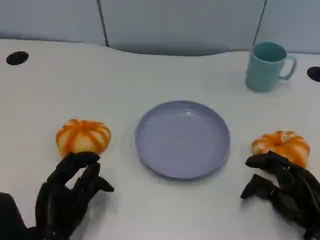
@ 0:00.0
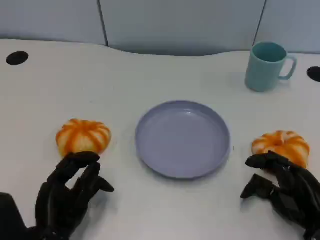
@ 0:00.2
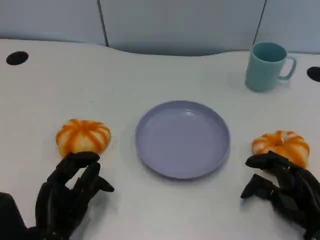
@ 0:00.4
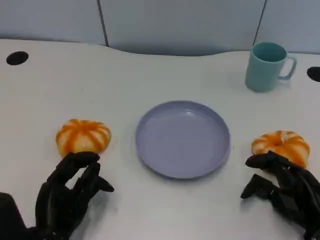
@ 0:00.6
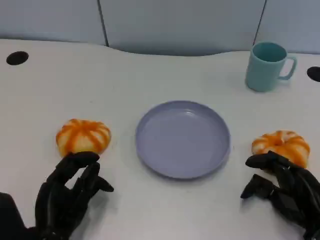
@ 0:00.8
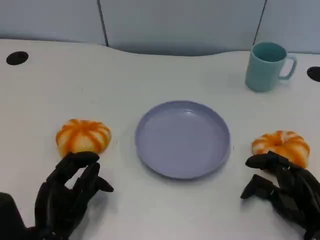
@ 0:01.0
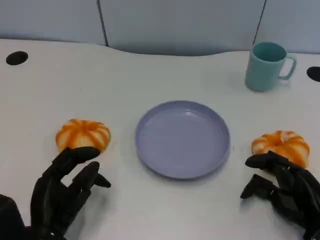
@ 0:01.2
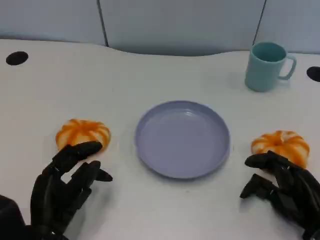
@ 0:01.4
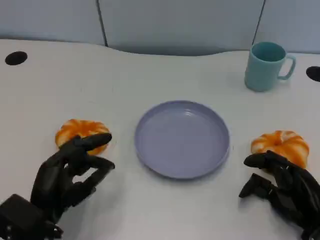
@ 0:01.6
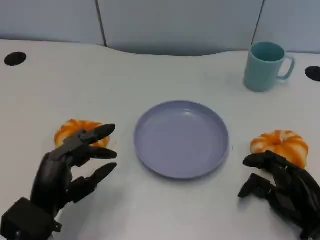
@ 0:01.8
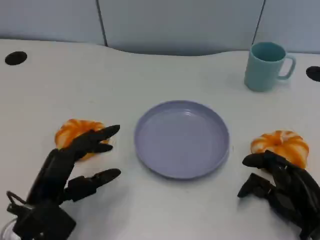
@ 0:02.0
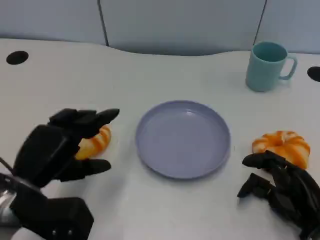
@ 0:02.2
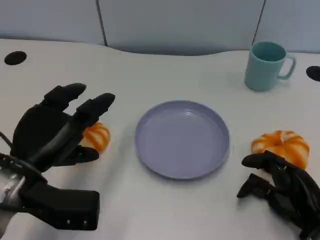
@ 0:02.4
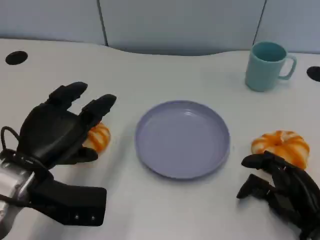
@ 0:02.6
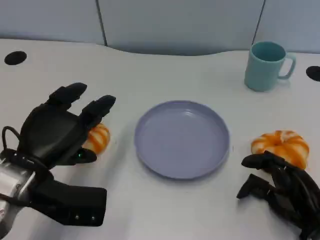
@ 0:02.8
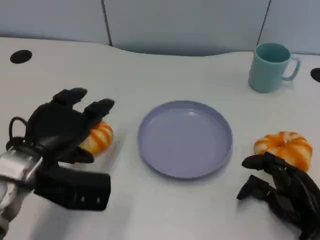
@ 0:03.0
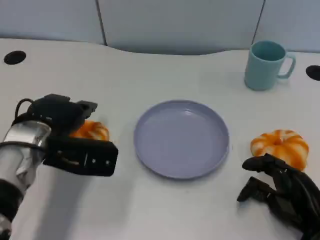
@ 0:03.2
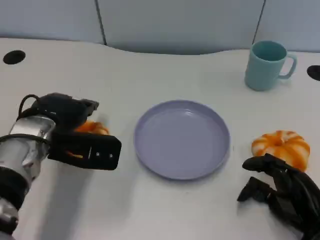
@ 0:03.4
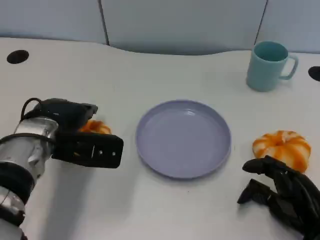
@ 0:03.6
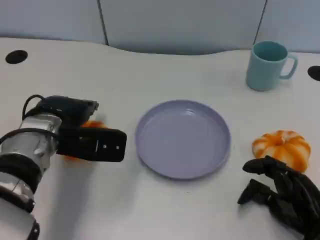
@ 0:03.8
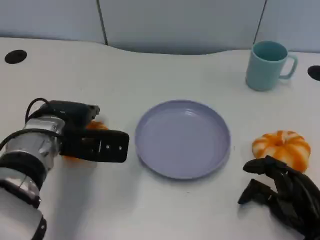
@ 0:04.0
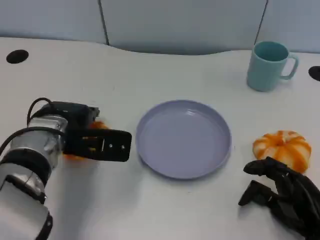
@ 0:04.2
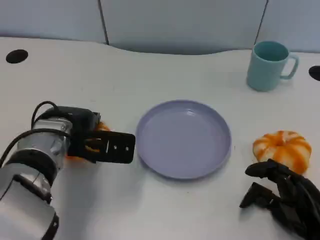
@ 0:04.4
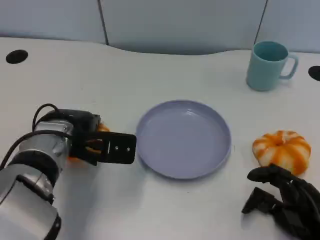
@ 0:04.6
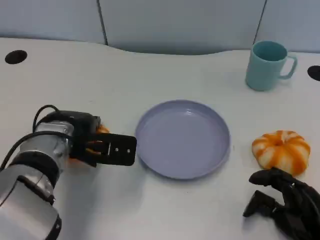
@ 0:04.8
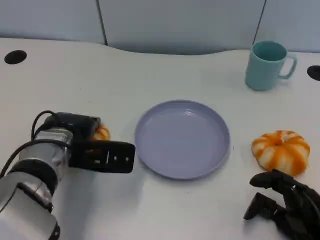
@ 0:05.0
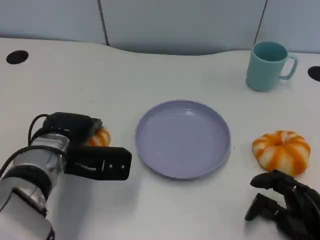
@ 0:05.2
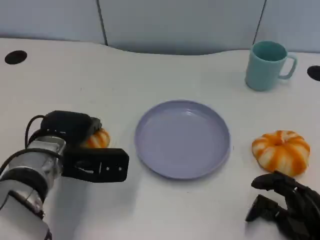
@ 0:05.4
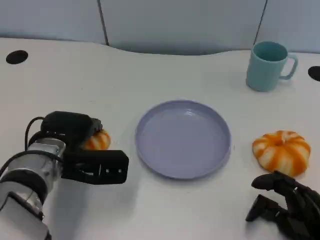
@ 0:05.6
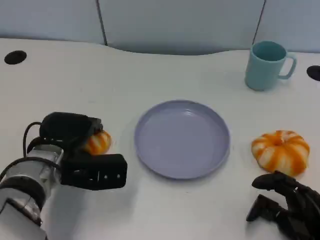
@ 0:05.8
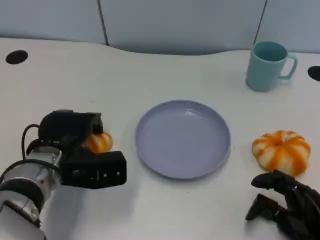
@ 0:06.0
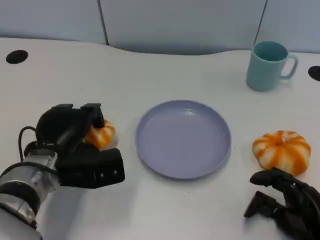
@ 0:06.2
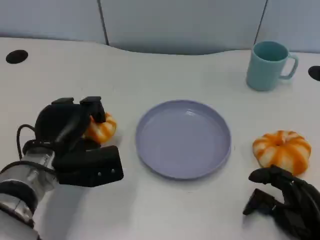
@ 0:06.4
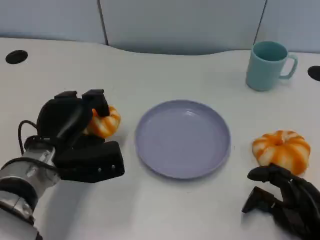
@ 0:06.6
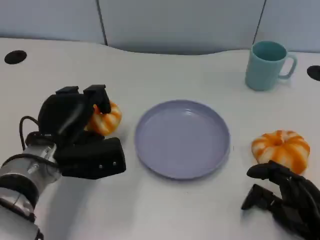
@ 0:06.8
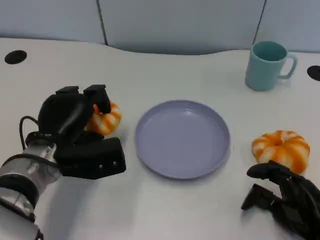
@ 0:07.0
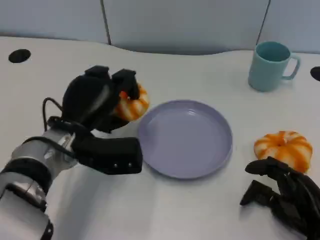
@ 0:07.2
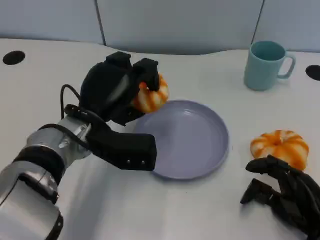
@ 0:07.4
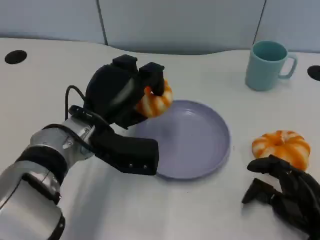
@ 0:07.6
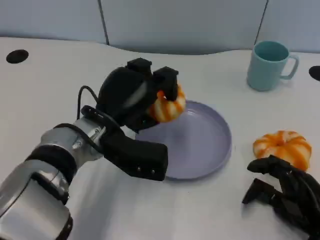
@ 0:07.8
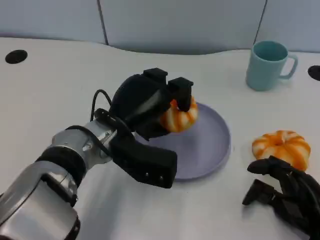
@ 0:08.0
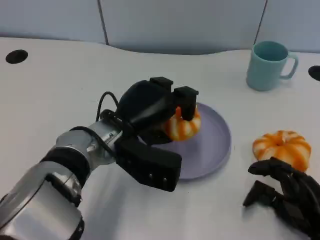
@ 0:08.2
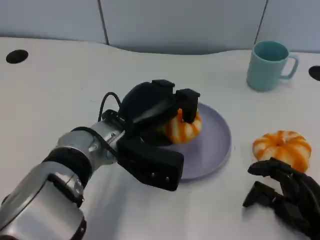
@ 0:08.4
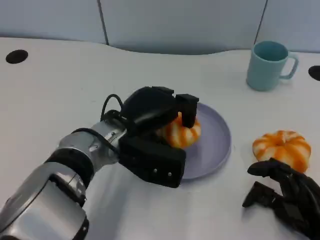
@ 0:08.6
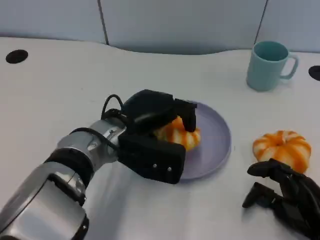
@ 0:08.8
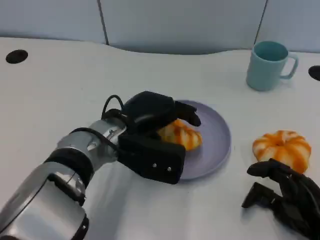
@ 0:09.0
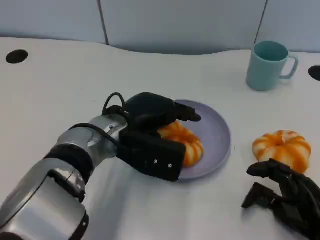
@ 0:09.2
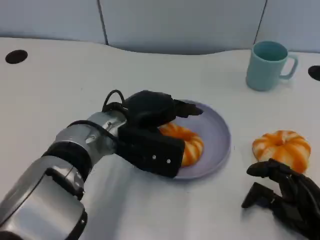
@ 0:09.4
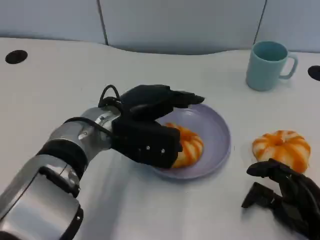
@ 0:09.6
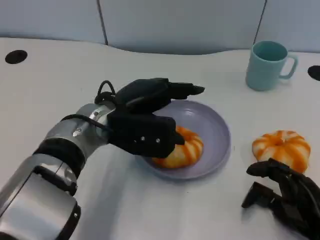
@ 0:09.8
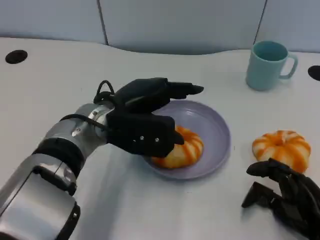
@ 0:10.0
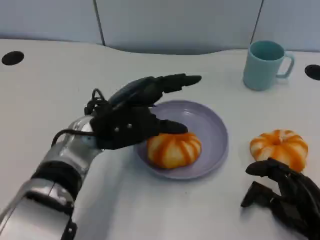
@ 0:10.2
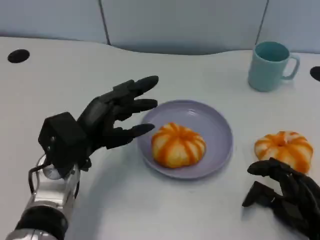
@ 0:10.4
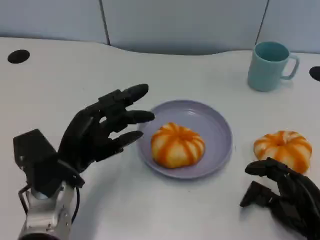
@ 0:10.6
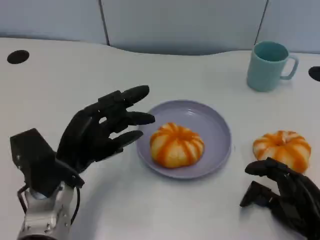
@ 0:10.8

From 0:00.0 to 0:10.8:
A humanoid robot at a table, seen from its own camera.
Task of the whole recording: Grasp the bread from the table and place it into the plate.
From 0:01.6 to 0:03.0: The left hand travels forward and upward by roughly 10 cm.
From 0:03.0 to 0:04.6: The left hand ends up about 5 cm from where it was.
From 0:04.6 to 0:06.2: The left hand shifts by about 5 cm.
From 0:06.2 to 0:07.8: The left hand is displaced to the right by about 10 cm.
From 0:09.2 to 0:10.8: The left hand shifts roughly 10 cm to the left and backward.

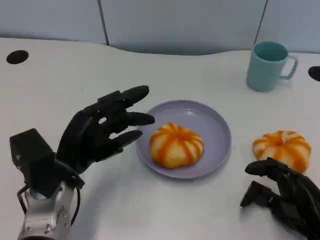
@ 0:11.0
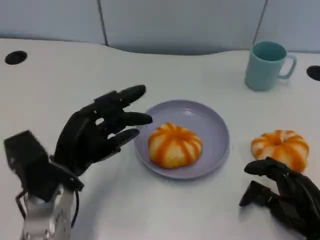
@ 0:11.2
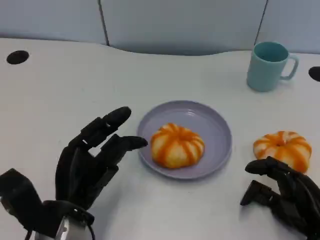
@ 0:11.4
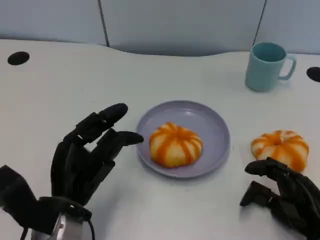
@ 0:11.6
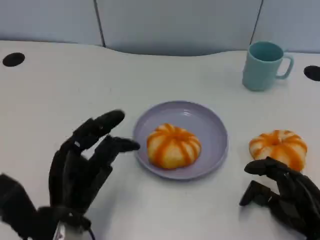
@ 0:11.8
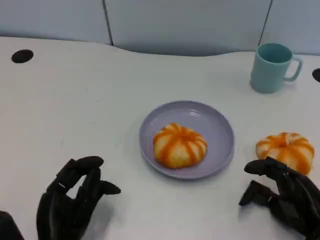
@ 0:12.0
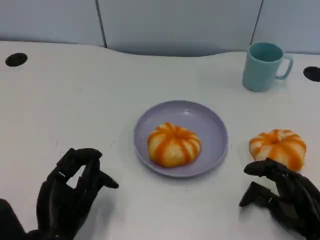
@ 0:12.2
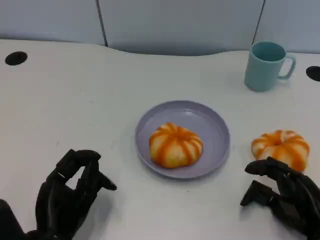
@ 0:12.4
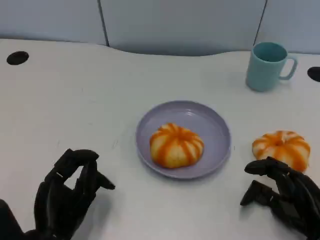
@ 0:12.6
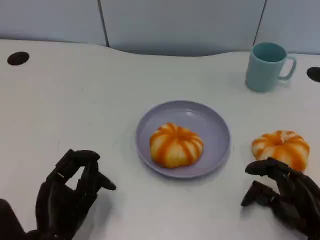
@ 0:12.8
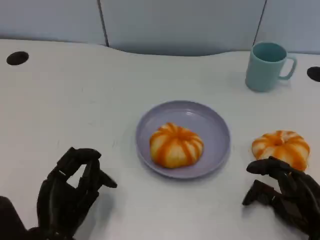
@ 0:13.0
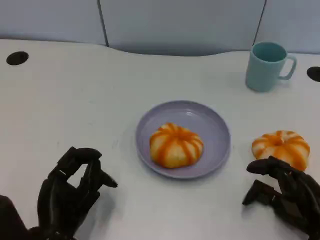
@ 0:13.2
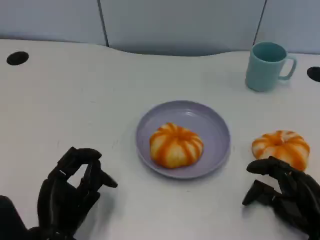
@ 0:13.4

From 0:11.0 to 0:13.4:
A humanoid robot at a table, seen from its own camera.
Task of the whole recording: Grasp the bread from the table and place it into the plate.
From 0:11.0 to 0:12.2: The left hand shifts some 10 cm backward.
From 0:12.2 to 0:13.4: Both hands stay put.

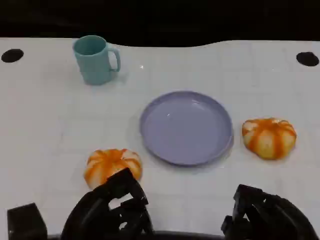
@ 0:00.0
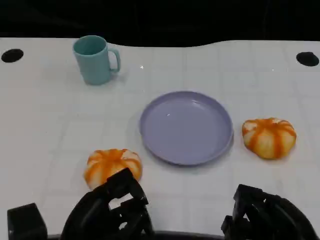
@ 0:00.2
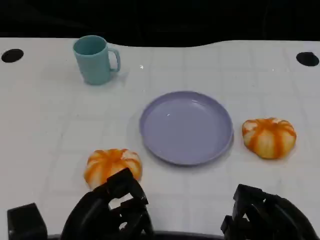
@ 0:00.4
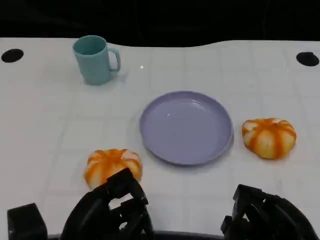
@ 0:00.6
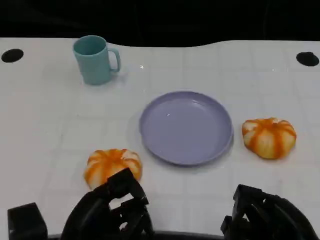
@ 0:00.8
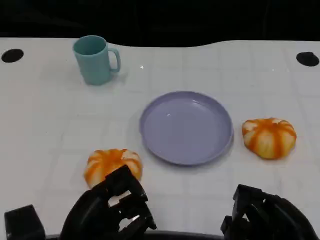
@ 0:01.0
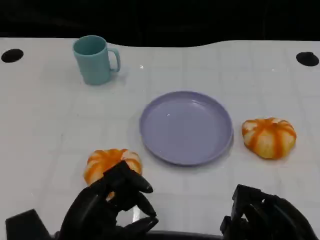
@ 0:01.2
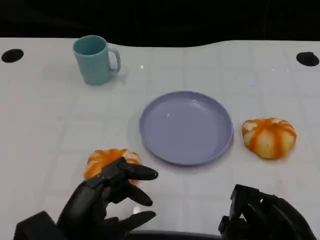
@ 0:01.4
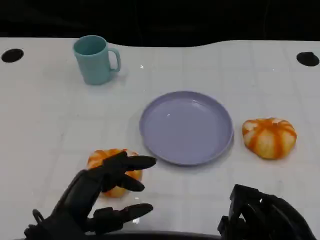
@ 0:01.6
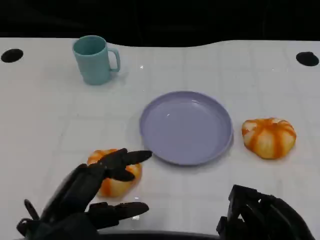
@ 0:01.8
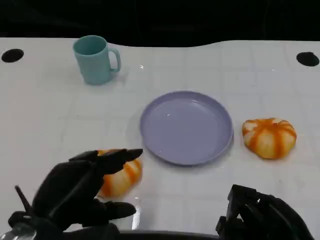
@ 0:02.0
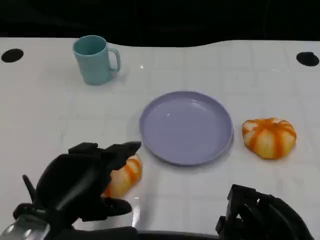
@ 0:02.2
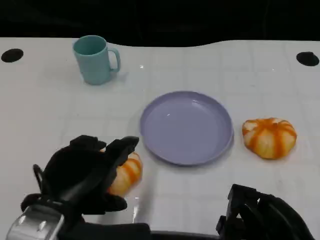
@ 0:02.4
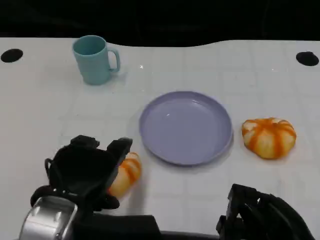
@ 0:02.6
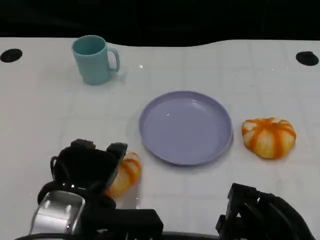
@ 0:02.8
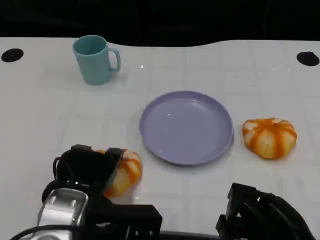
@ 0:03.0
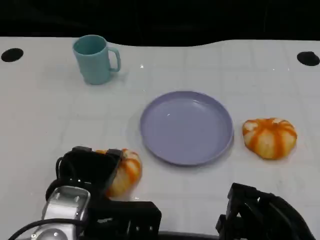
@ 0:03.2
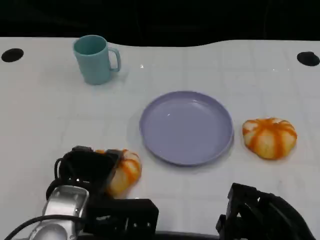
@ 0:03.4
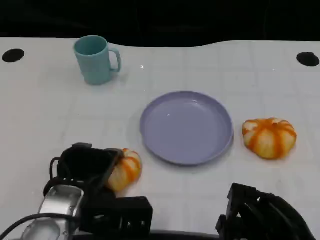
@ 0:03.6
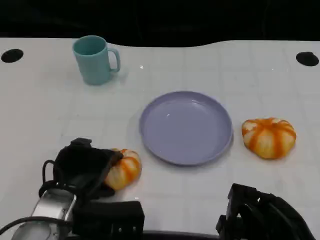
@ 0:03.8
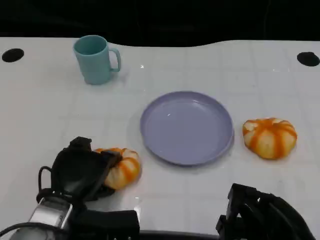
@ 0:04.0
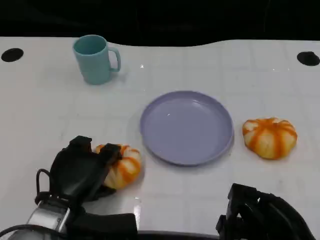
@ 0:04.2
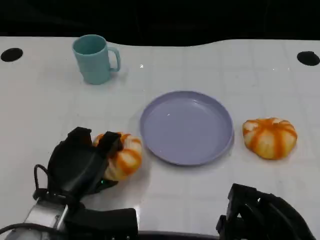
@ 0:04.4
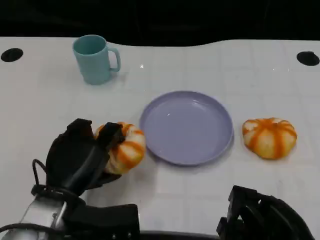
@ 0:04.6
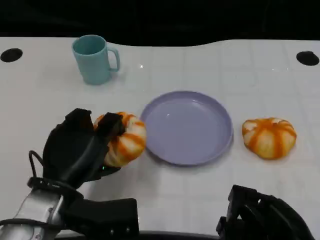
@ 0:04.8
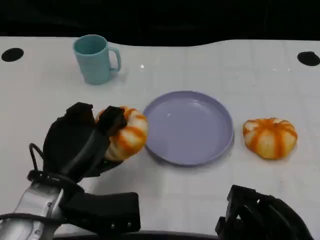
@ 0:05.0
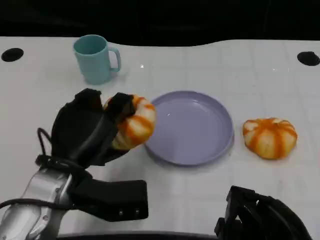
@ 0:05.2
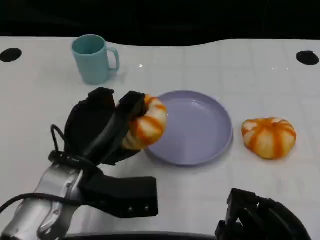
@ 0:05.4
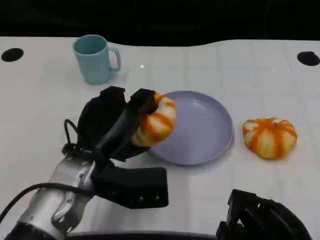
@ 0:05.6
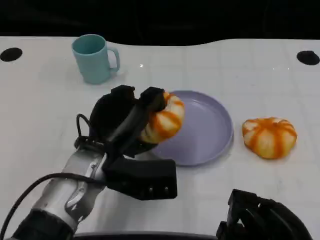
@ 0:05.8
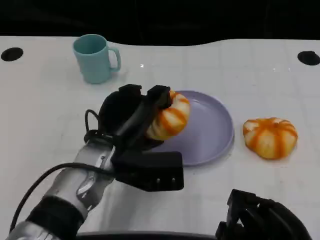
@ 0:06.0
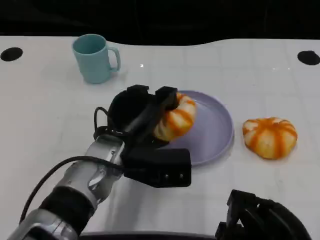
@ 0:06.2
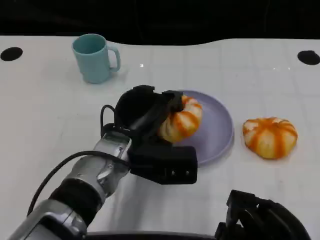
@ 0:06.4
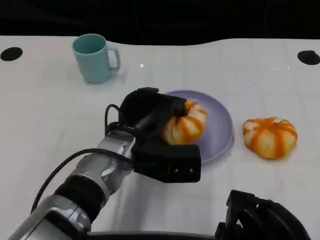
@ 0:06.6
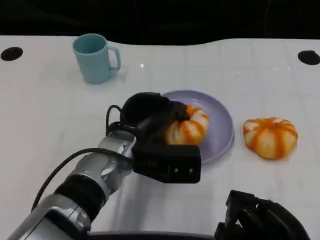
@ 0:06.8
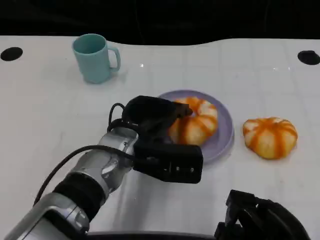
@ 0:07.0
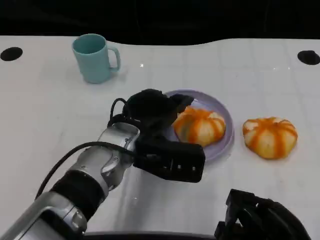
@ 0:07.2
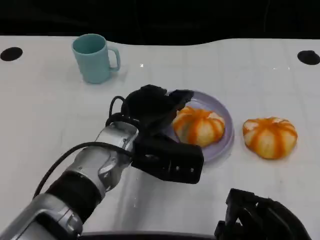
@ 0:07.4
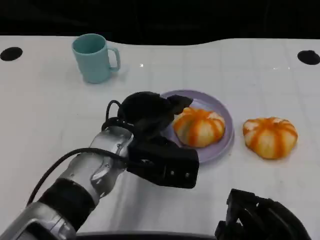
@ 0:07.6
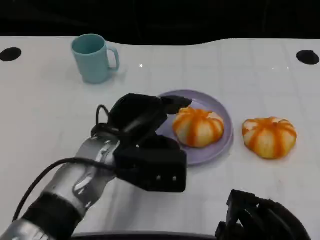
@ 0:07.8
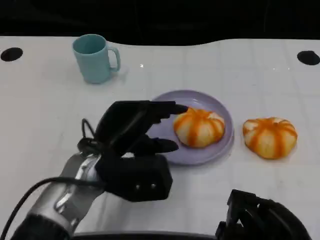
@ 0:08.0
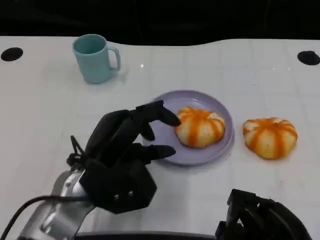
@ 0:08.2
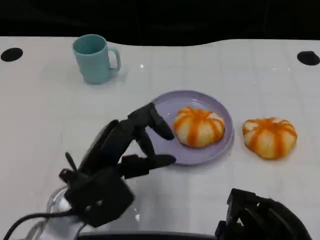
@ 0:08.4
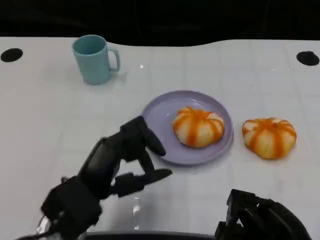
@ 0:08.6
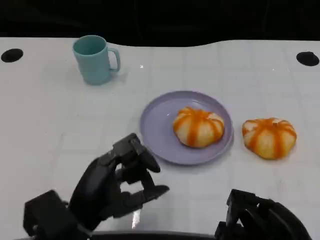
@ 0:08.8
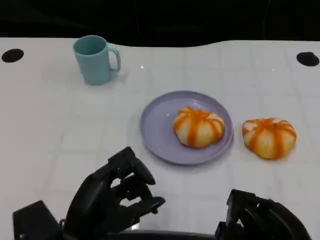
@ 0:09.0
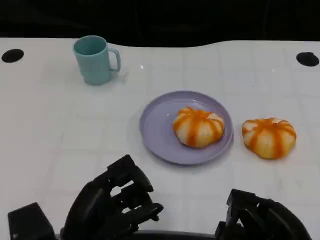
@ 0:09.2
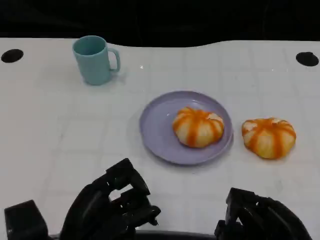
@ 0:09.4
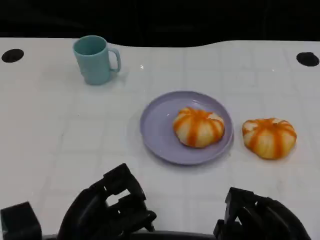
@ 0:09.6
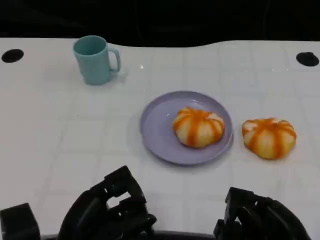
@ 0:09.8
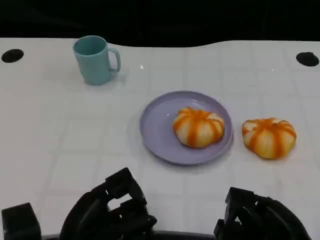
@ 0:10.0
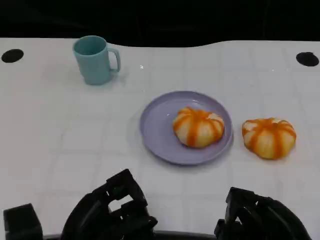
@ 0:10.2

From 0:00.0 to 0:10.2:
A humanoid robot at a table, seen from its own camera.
Task of the whole recording: Grasp the bread from the table and place it into the plate.
From 0:01.4 to 0:03.0: The left hand travels forward by roughly 5 cm.
From 0:03.0 to 0:04.4: The left hand shifts by approximately 5 cm.
From 0:04.4 to 0:05.8: The left hand is displaced to the right and upward by approximately 10 cm.
From 0:07.2 to 0:08.8: The left hand travels backward and to the left by roughly 15 cm.
